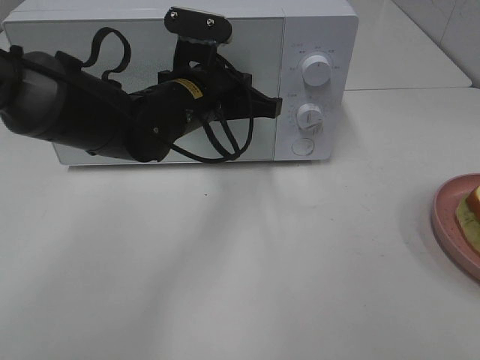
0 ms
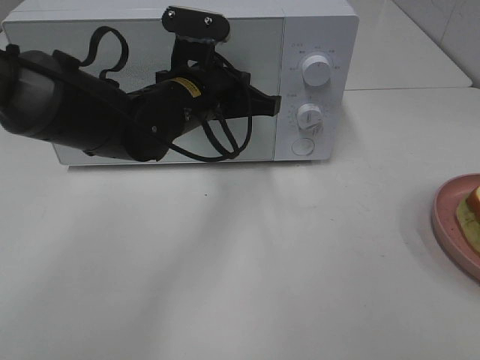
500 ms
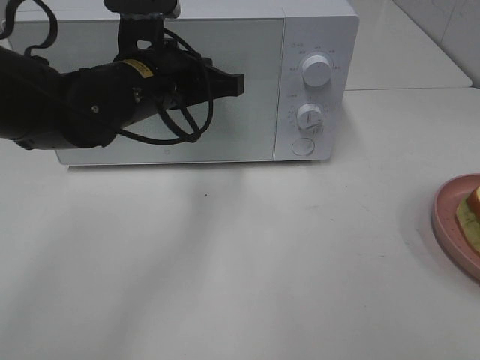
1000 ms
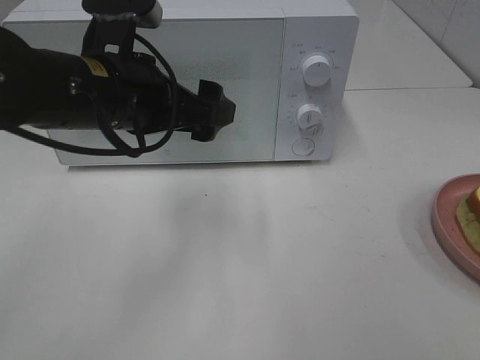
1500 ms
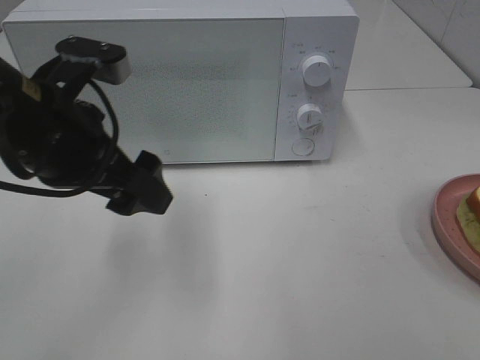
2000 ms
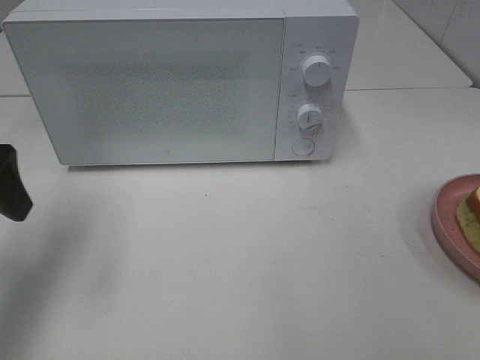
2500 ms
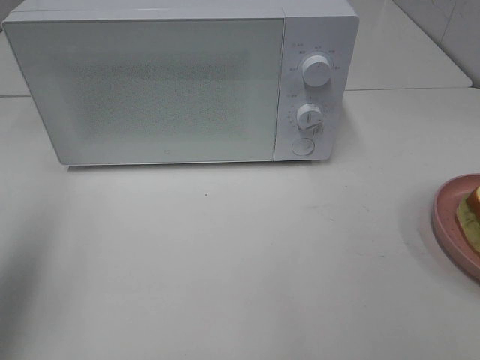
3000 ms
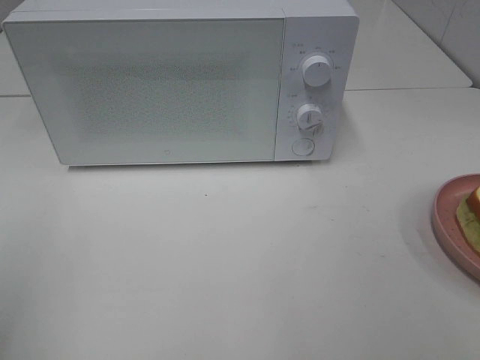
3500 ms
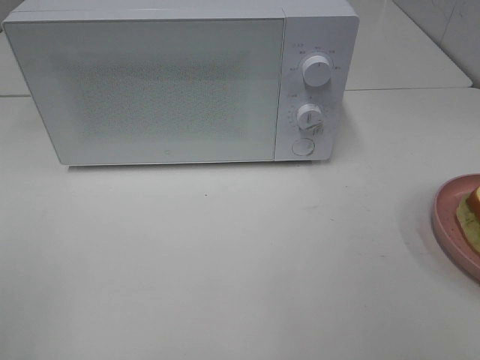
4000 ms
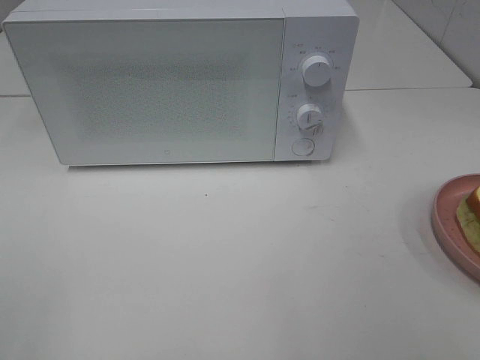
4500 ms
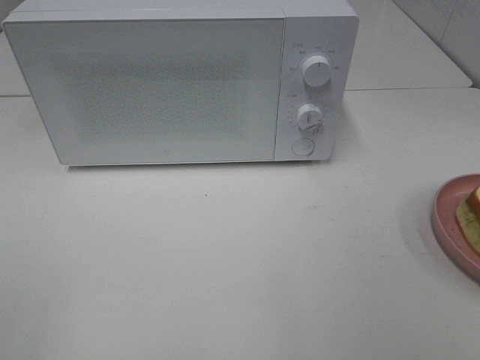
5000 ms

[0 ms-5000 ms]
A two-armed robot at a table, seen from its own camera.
Task of the whole recording: Heat Sandwich.
0 ms to 2500 ms: The left gripper is displaced to the left and backward by approximately 25 cm, and opens up.
2500 ms to 5000 ms: The left gripper goes roughly 25 cm backward.

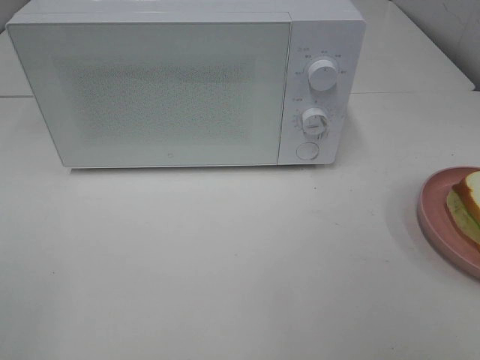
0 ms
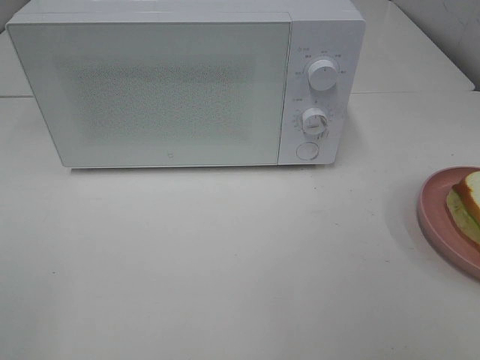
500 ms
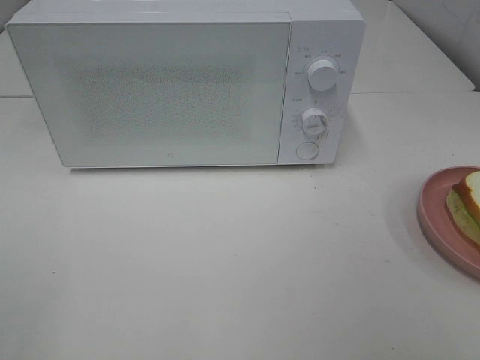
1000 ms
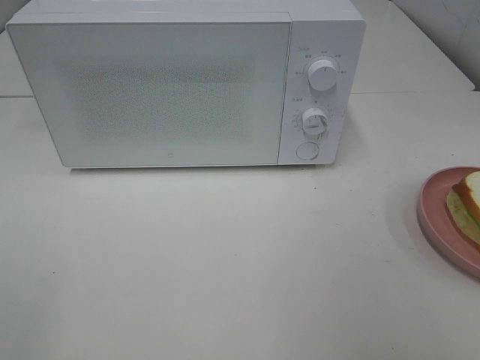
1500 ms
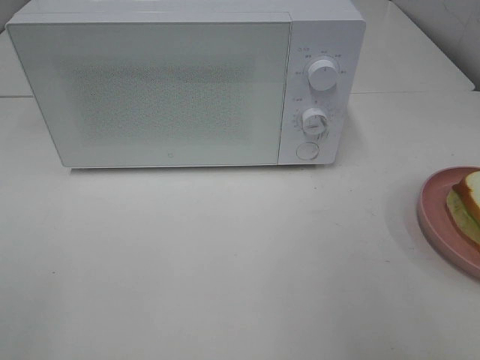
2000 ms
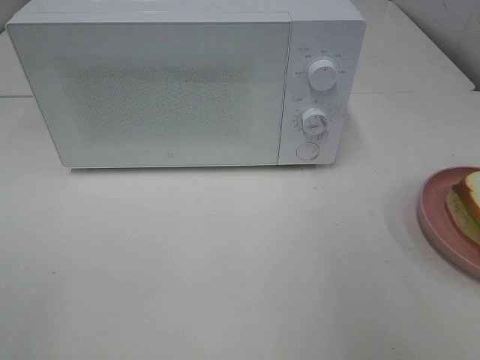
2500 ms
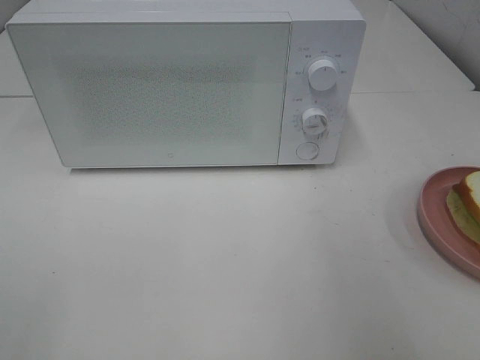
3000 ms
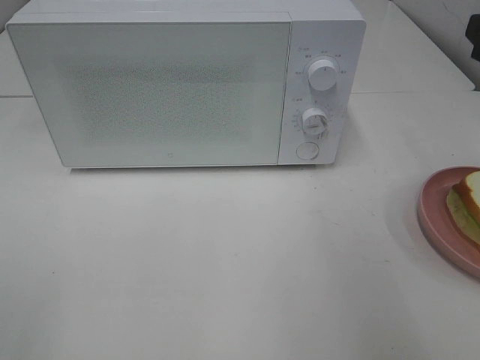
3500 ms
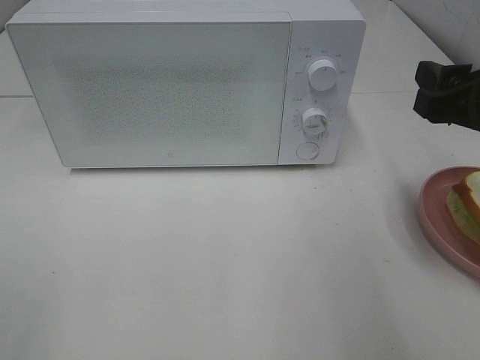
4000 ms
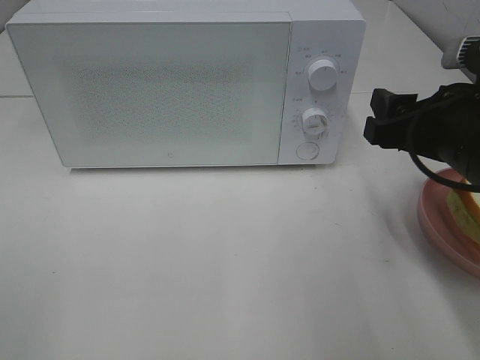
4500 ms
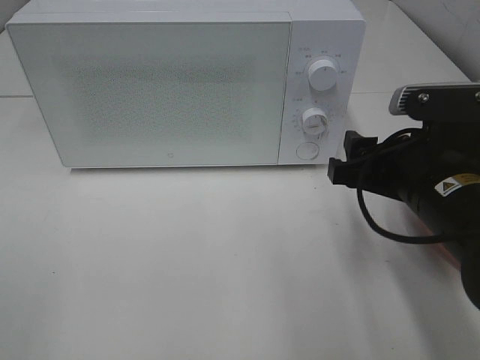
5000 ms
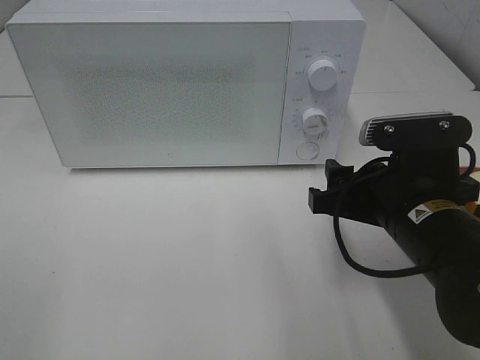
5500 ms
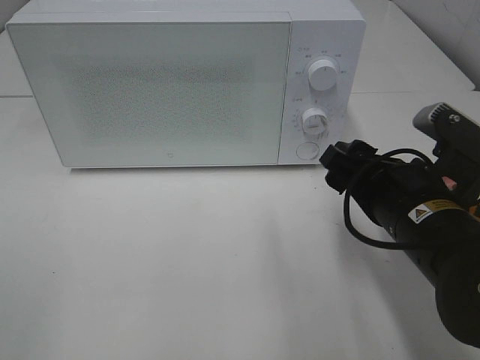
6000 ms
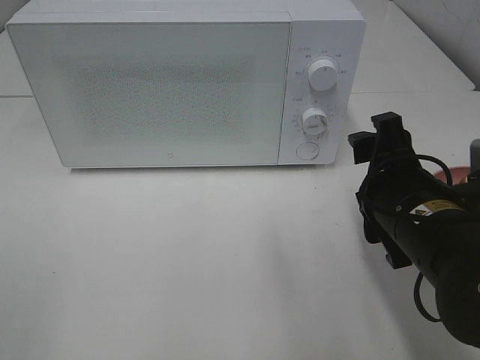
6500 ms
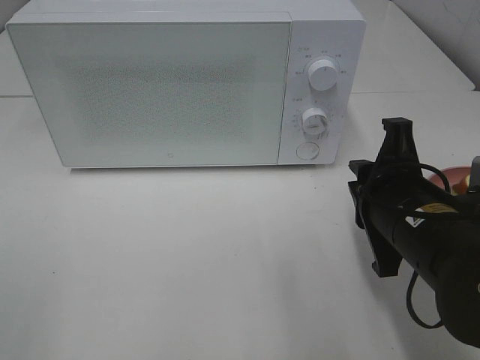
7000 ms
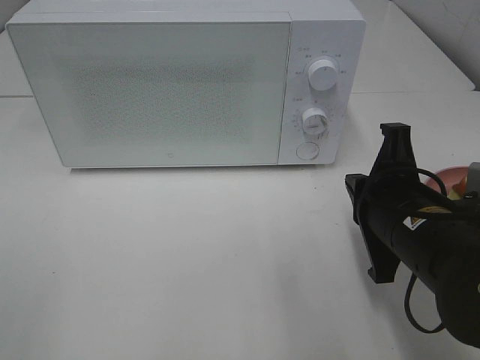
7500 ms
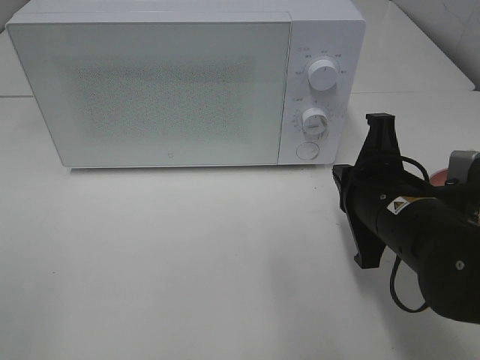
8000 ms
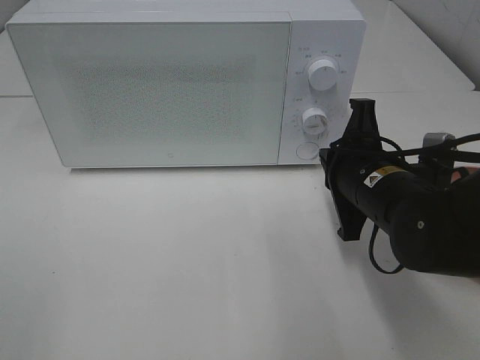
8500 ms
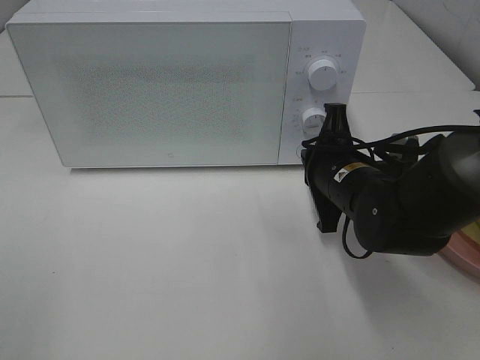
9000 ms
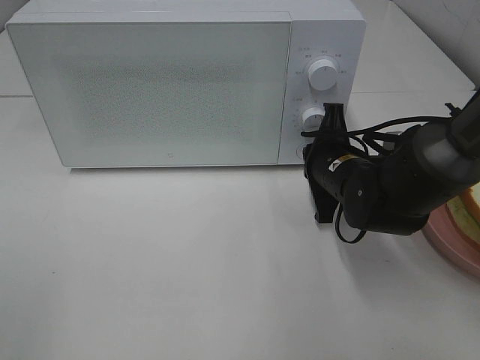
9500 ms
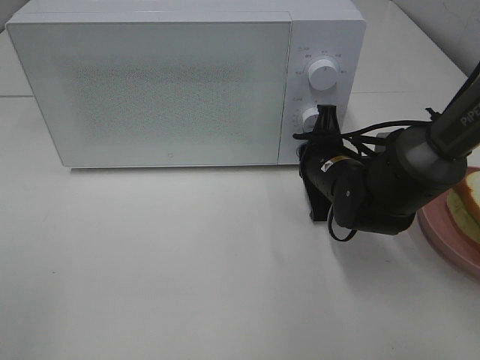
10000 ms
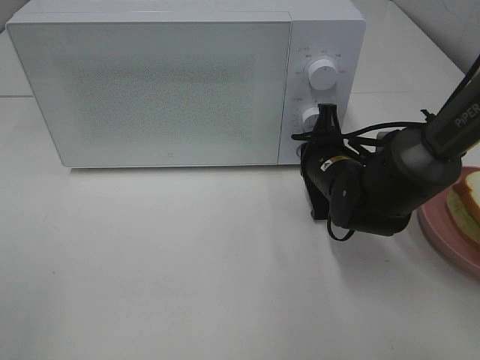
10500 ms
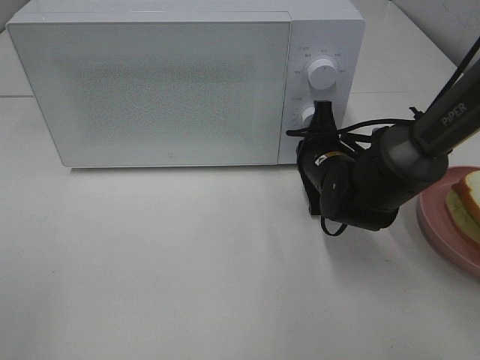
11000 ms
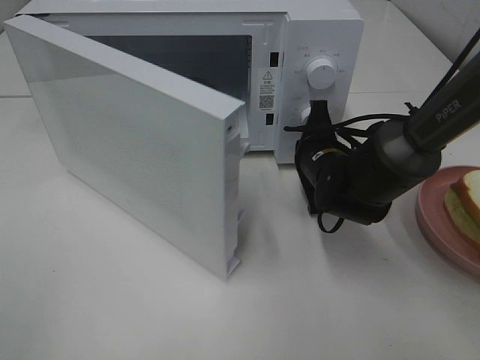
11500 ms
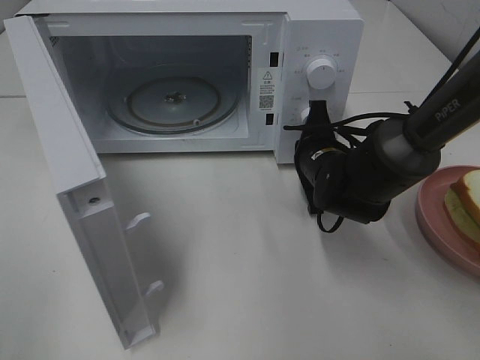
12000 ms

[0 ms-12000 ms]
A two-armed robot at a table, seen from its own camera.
Task of the whole recording: Heat Sandwich.
2000 ms to 4000 ms: The right gripper moves forward and downward, about 15 cm.
4000 ms to 6000 ms: The right gripper is displaced to the left and downward by approximately 10 cm.
6000 ms to 8000 ms: The right gripper closes its fingers.
8000 ms to 10000 ms: The right gripper heads forward and downward, covering approximately 15 cm.

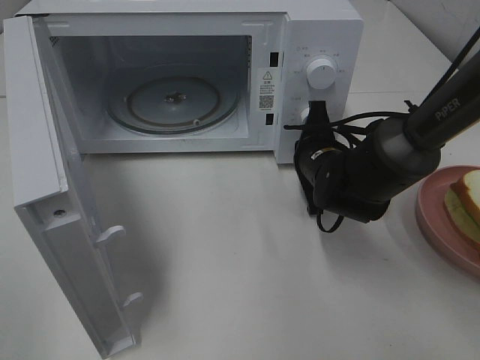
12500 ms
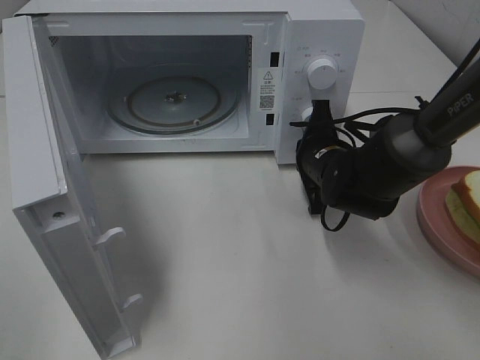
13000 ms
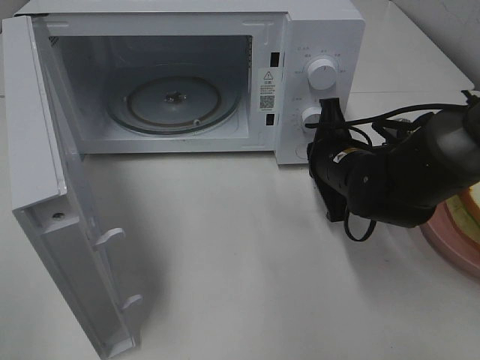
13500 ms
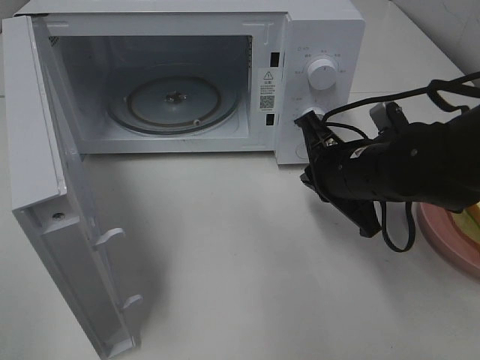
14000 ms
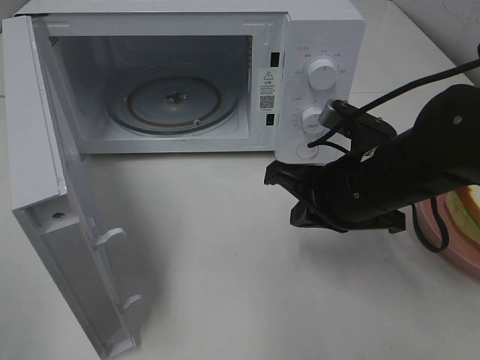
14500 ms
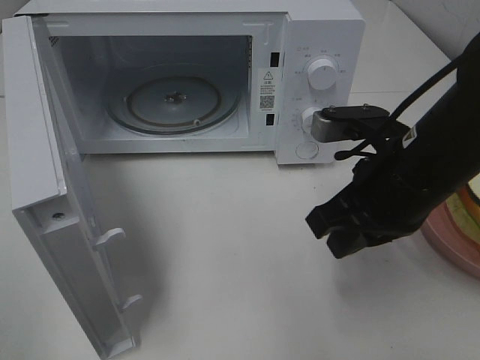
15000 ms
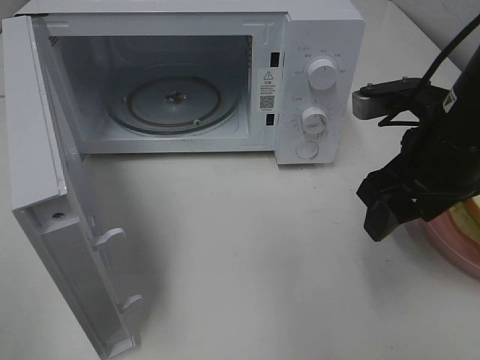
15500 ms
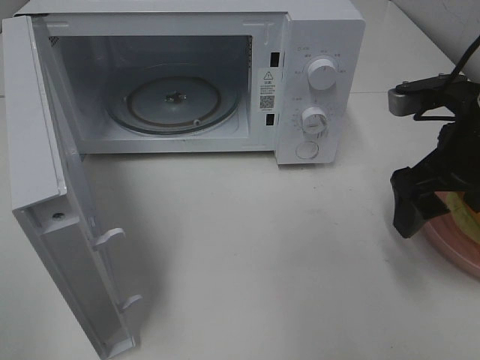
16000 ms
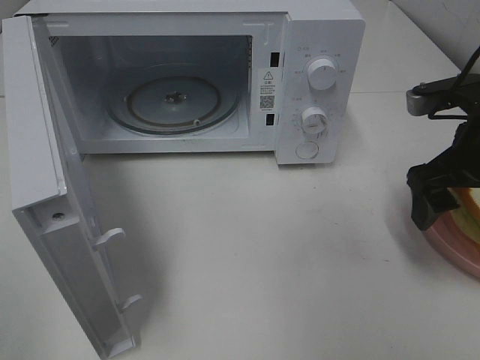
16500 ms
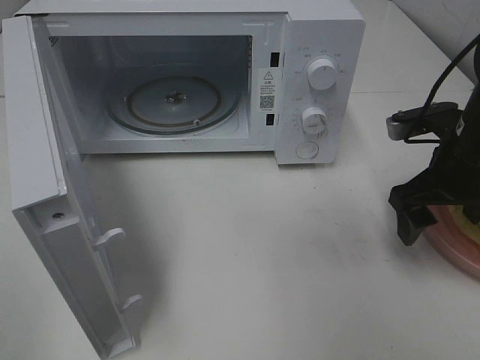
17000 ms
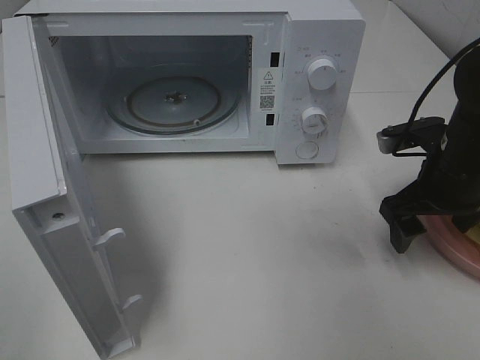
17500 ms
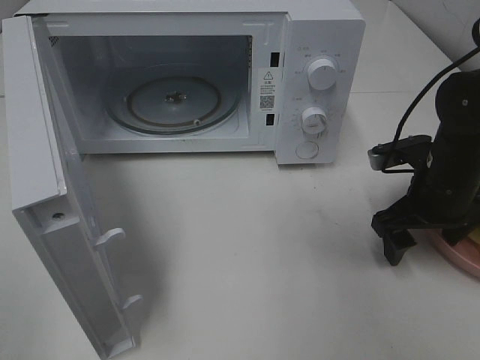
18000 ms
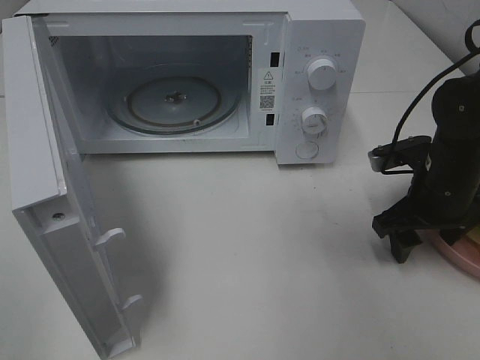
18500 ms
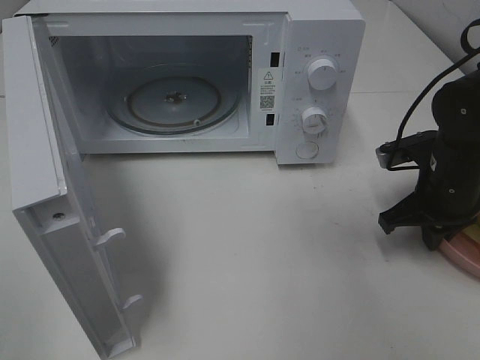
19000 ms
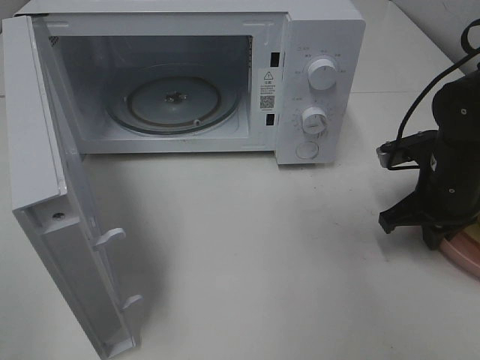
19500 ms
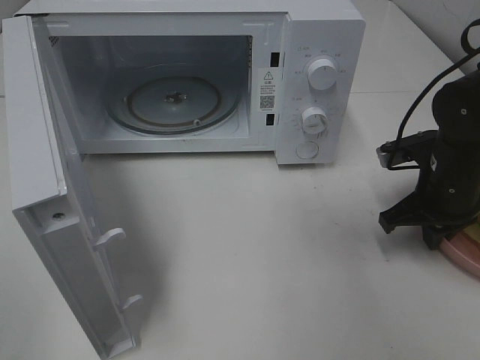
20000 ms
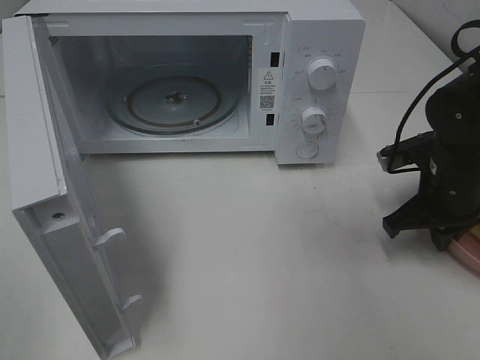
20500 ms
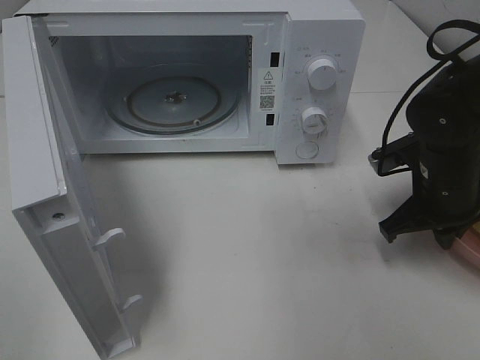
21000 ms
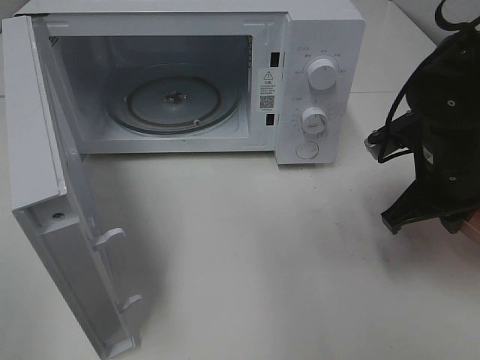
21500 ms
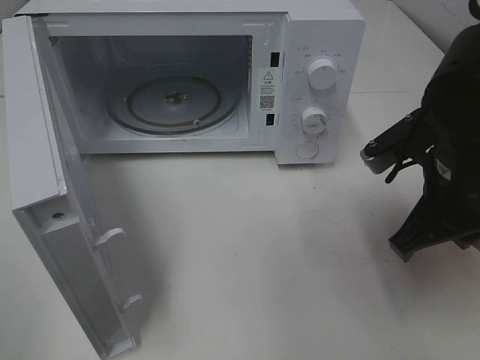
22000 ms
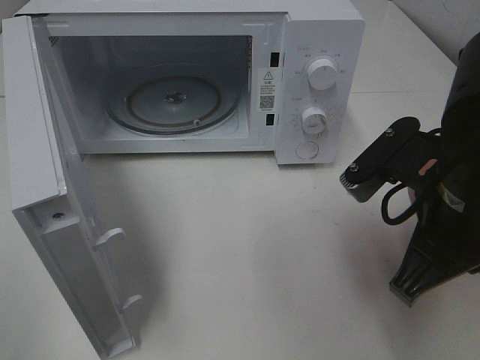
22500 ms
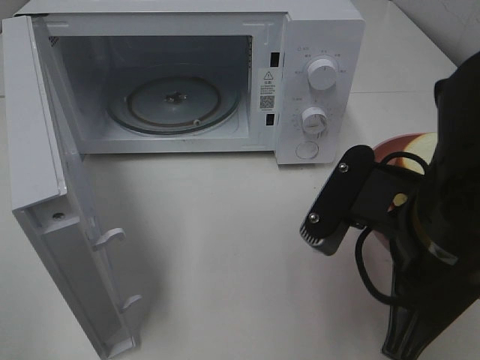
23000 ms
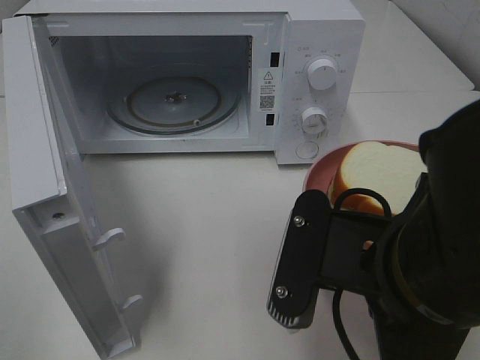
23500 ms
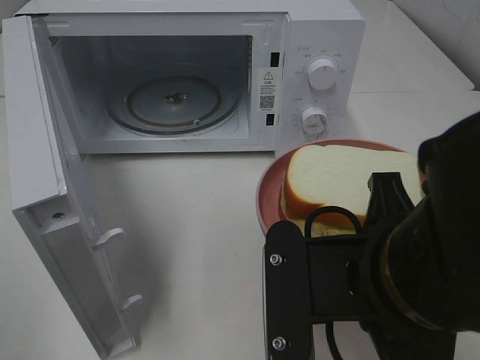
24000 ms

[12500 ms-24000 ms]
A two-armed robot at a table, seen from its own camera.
Task of the whole recording: Heat Sandwich.
Step, 14000 ms to 19500 ms: Right hand: grab the plate with the sandwich.
12500 ms to 14500 ms: The right gripper moves backward and upward, some 15 cm.
14500 ms to 16500 ms: The right gripper heads to the right, covering some 10 cm, and opens up.
16500 ms to 18500 ms: The right gripper moves downward, about 10 cm.
18500 ms to 20000 ms: The right gripper closes up.
20000 ms to 22000 ms: The right gripper goes about 15 cm backward, upward and to the left.
22000 ms to 24000 ms: The right gripper moves backward and to the left, approximately 15 cm.
